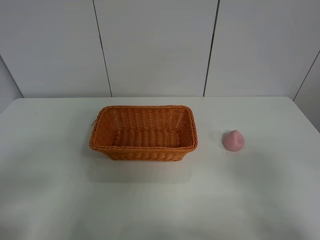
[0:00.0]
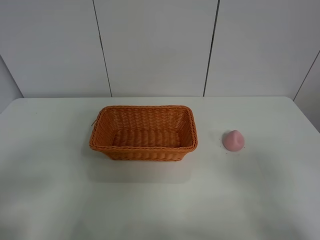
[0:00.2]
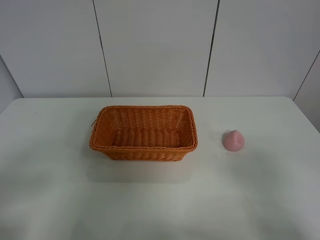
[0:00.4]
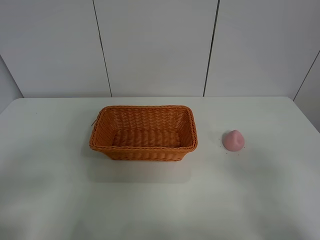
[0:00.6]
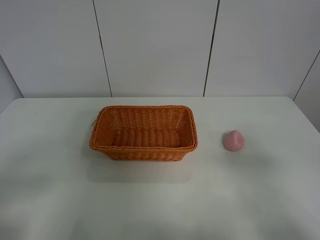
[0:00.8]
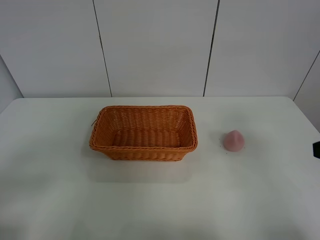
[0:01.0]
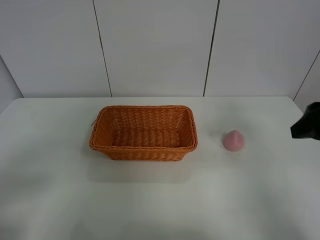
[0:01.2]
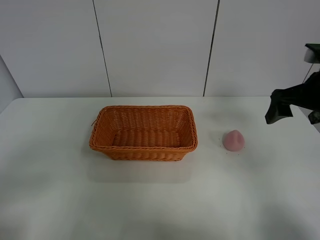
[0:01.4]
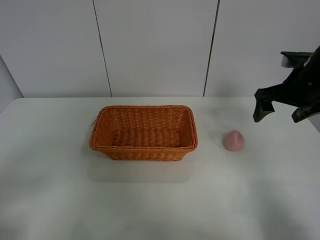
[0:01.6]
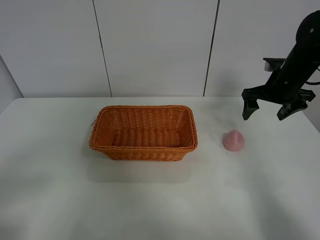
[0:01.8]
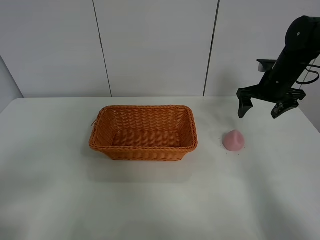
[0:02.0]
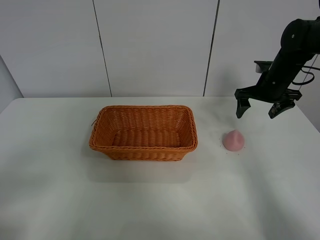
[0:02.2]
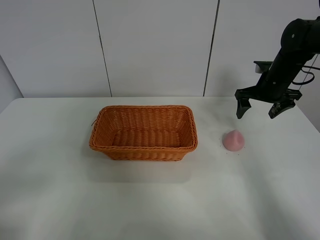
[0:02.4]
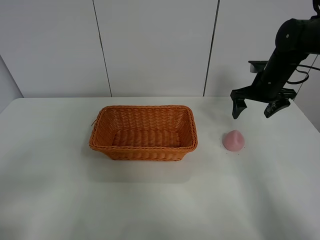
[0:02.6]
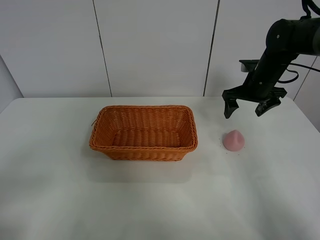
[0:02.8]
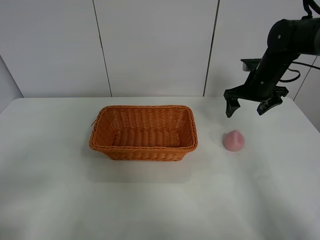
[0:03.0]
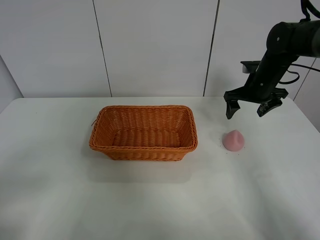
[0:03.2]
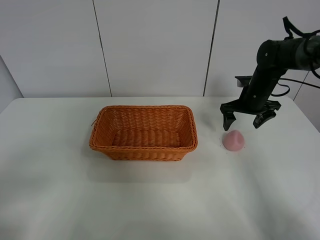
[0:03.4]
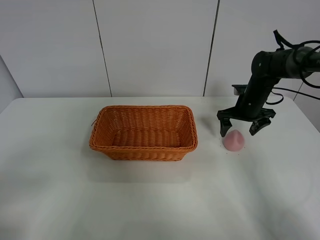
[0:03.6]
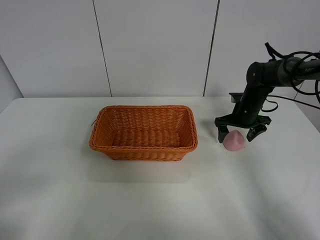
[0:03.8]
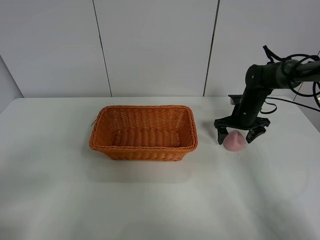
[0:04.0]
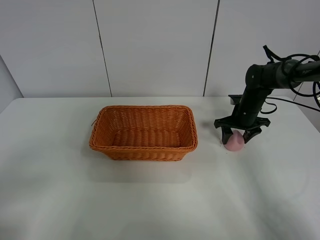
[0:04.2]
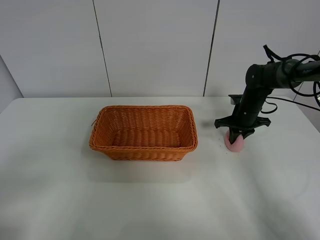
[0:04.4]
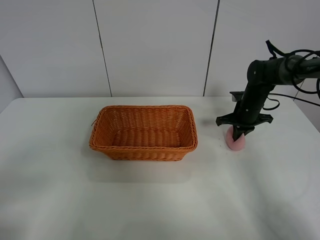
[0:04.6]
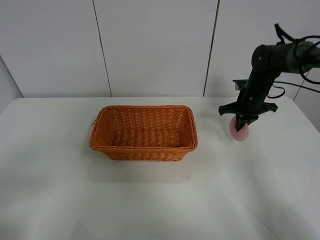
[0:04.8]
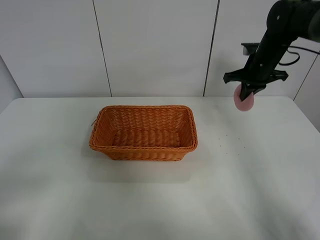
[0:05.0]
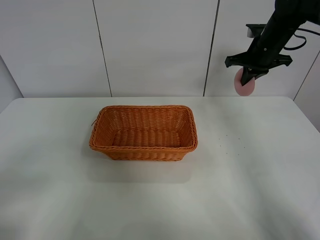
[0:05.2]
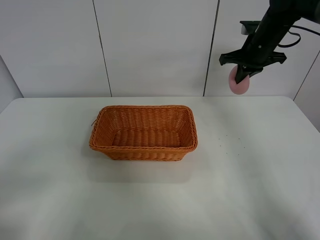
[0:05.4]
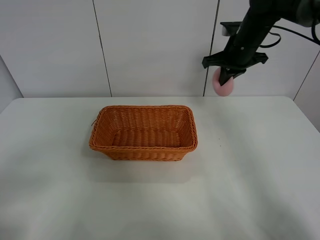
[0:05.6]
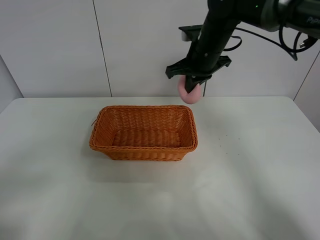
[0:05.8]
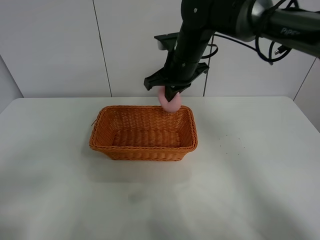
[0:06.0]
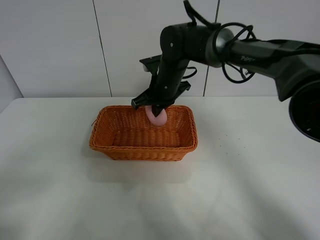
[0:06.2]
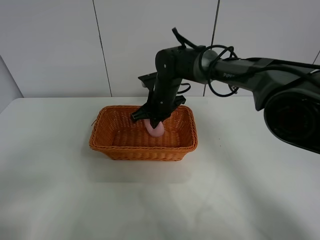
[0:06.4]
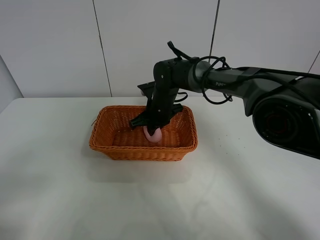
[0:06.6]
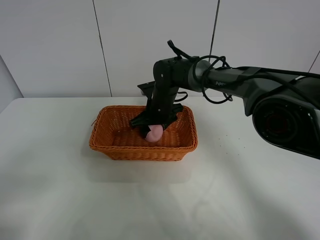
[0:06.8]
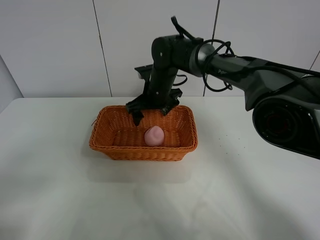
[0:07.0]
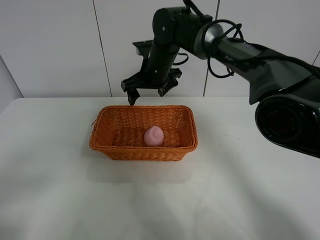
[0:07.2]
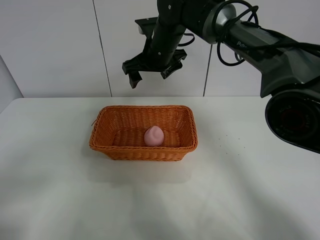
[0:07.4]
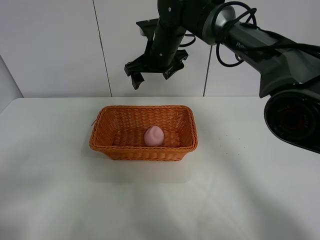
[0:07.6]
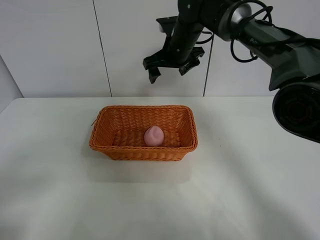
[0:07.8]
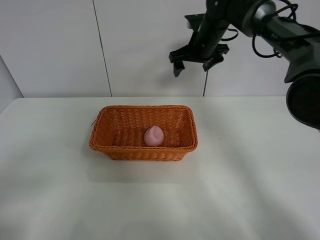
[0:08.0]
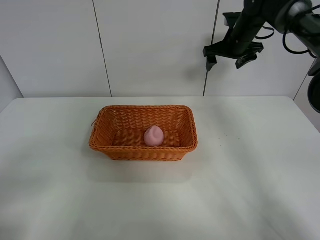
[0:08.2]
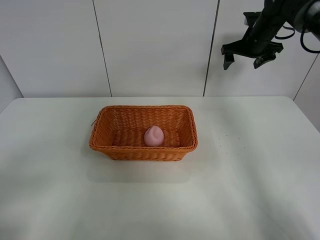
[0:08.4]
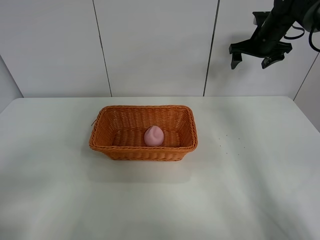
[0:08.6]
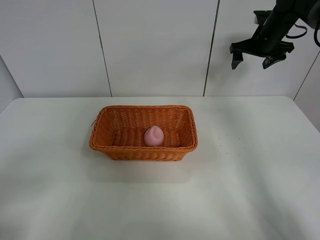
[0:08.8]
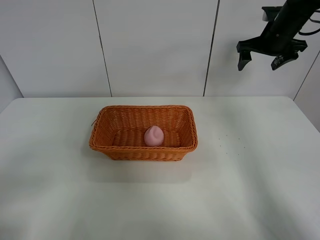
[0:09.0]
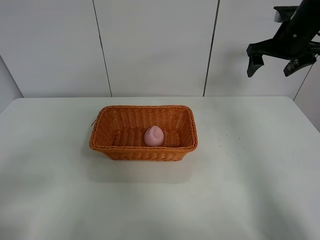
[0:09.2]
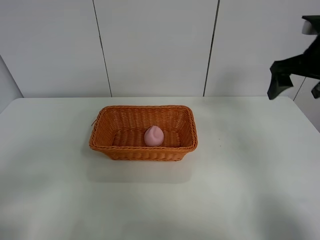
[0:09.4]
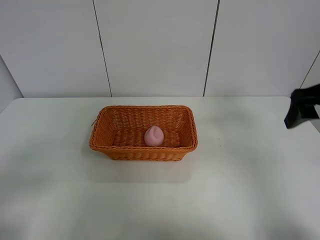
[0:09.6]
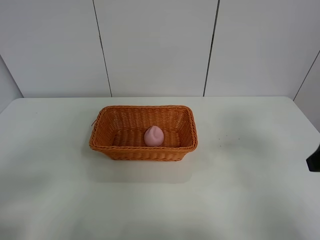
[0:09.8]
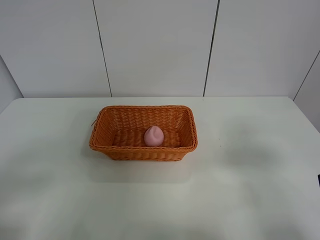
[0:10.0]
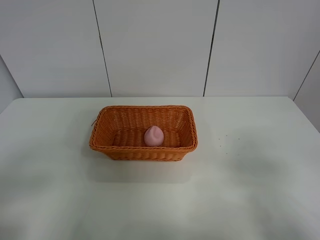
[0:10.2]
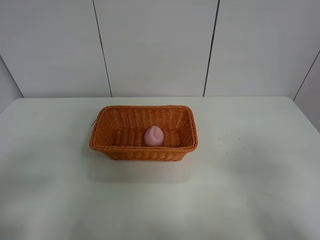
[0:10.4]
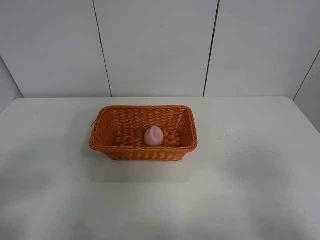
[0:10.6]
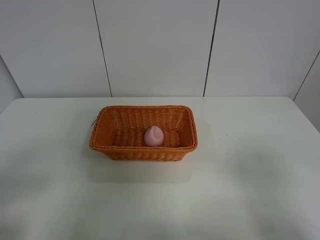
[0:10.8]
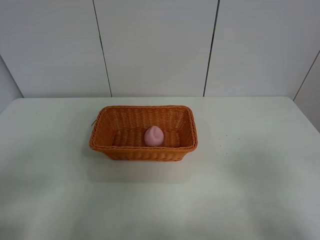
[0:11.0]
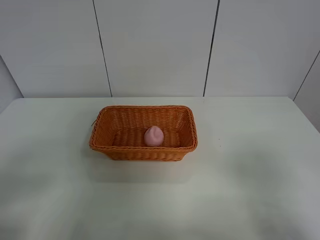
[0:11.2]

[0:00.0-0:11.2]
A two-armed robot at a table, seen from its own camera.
Step, 0:00.0 to 0:04.4: Grasp the peach with right gripper.
Step, 0:04.6 to 0:07.2: Place the peach in the basket with right gripper.
0:00.0 to 0:01.6: The right gripper is displaced forward by approximately 35 cm.
0:01.6 to 0:03.2: The right gripper shifts about 10 cm forward and downward.
0:03.2 to 0:04.8: The right gripper goes downward and returns, roughly 10 cm each way, and closes.
0:04.8 to 0:06.4: The right gripper heads to the left, covering about 25 cm.
0:06.4 to 0:08.0: The right gripper shifts some 20 cm upward, to the right and forward, and opens up.
0:08.0 to 0:09.6: The right gripper shifts about 30 cm backward and to the right.
0:09.6 to 0:11.2: The right gripper is displaced backward by about 20 cm.
